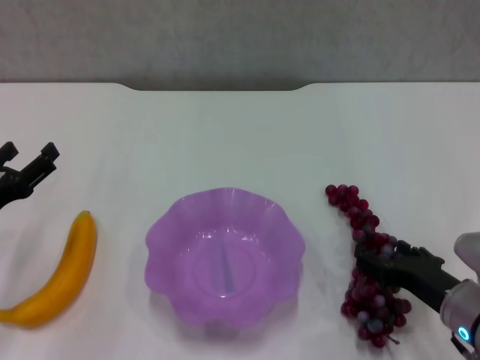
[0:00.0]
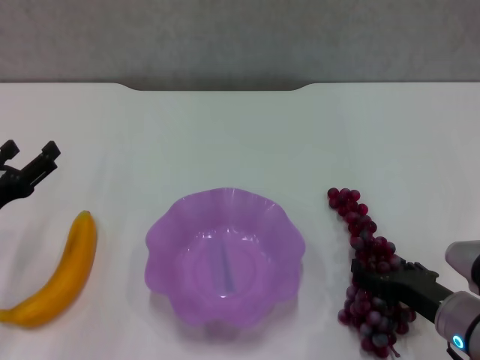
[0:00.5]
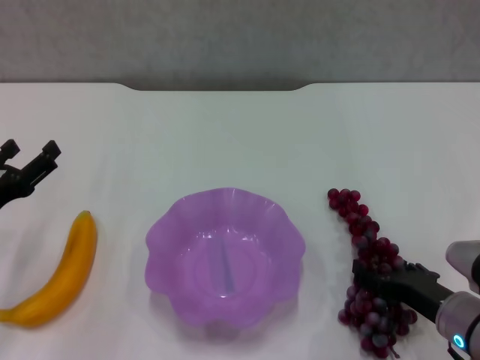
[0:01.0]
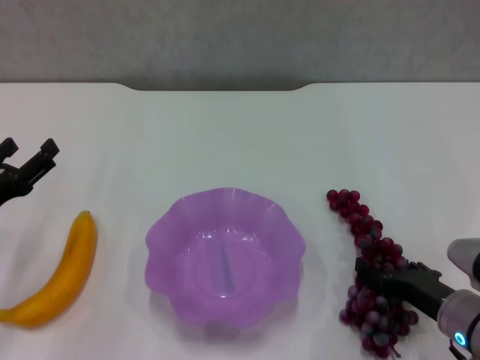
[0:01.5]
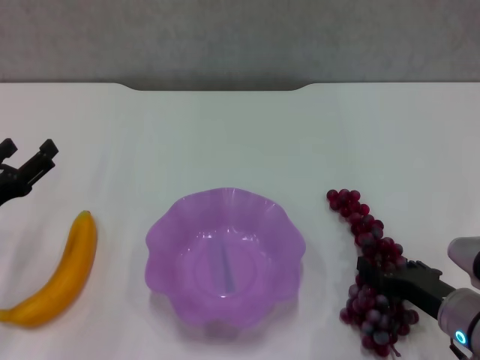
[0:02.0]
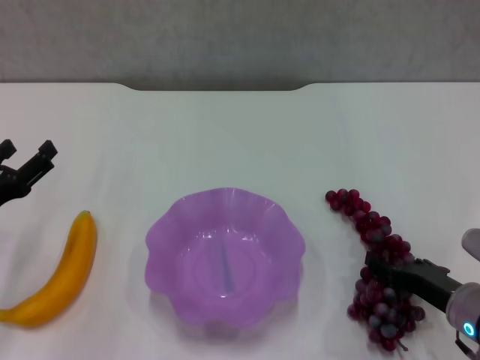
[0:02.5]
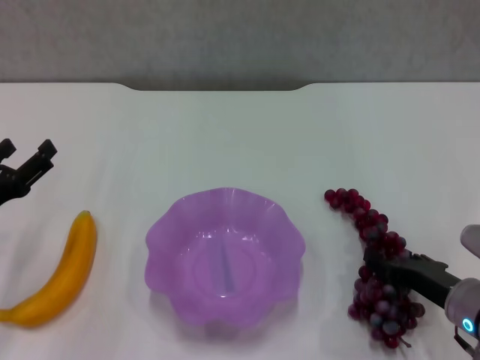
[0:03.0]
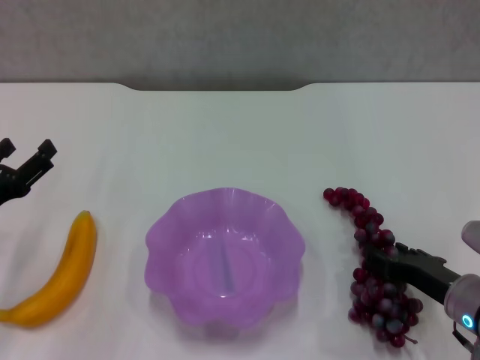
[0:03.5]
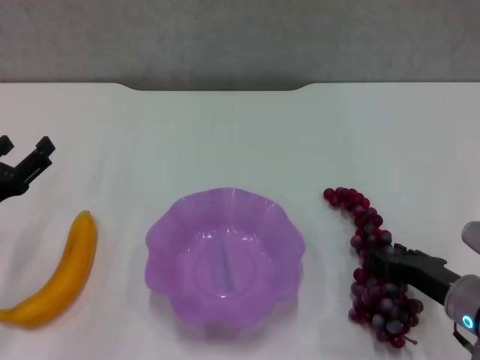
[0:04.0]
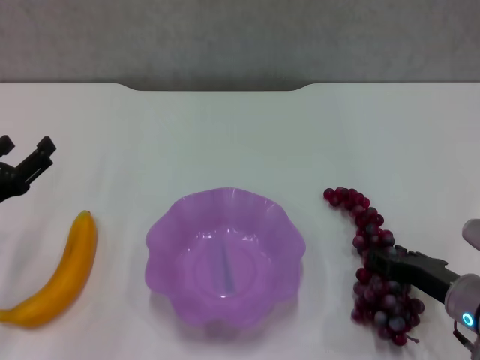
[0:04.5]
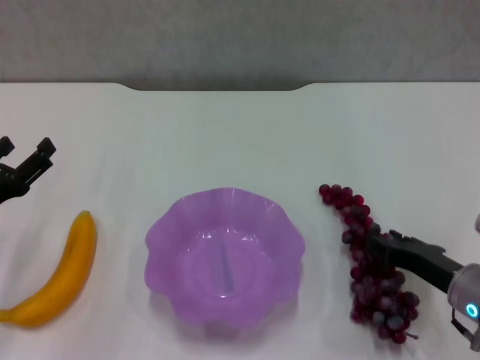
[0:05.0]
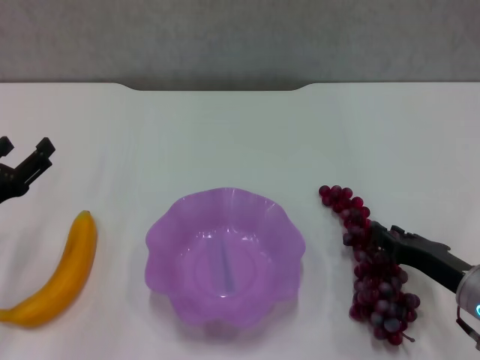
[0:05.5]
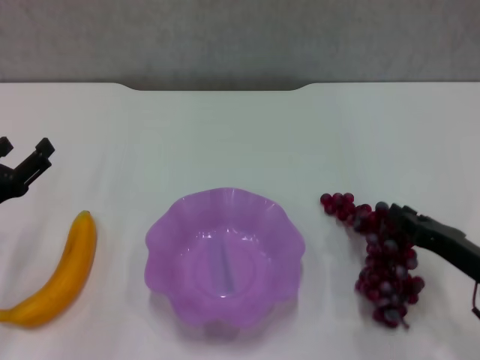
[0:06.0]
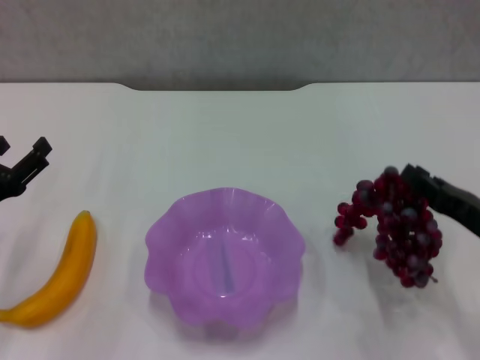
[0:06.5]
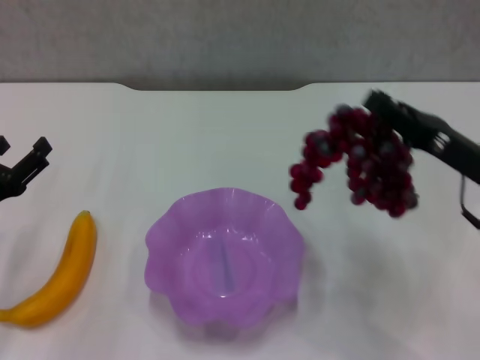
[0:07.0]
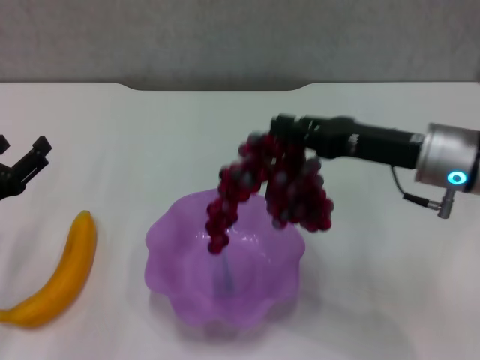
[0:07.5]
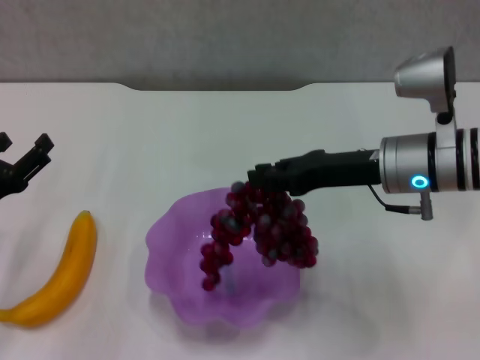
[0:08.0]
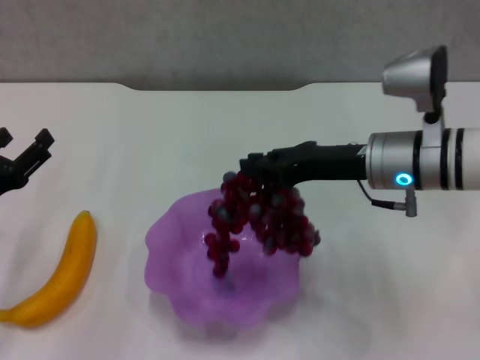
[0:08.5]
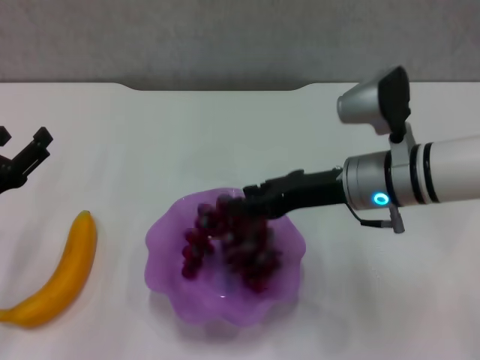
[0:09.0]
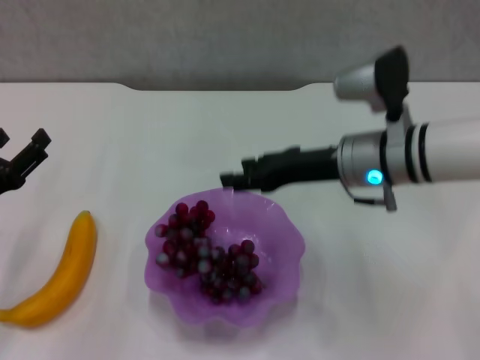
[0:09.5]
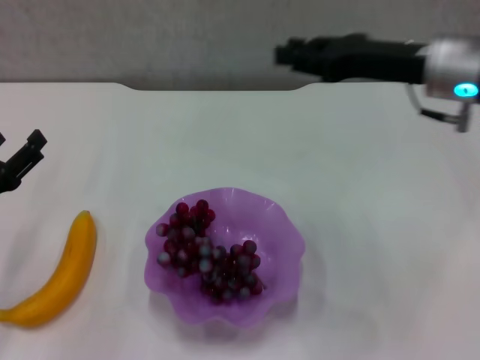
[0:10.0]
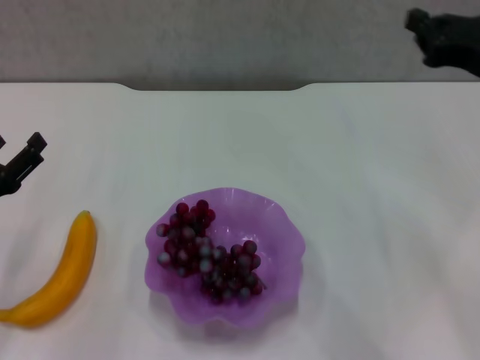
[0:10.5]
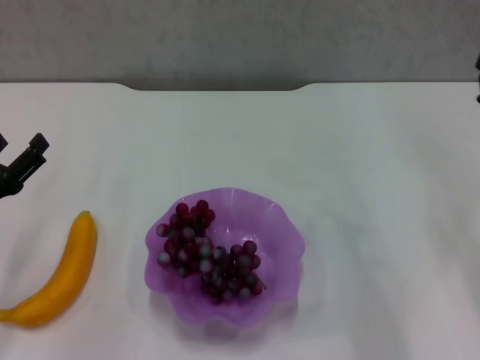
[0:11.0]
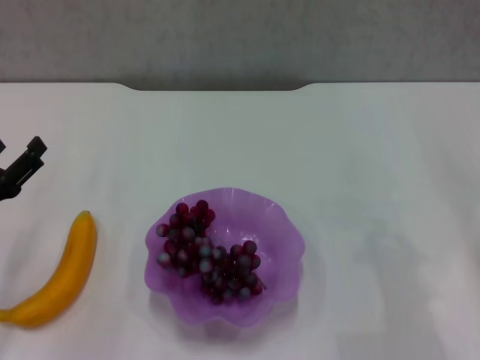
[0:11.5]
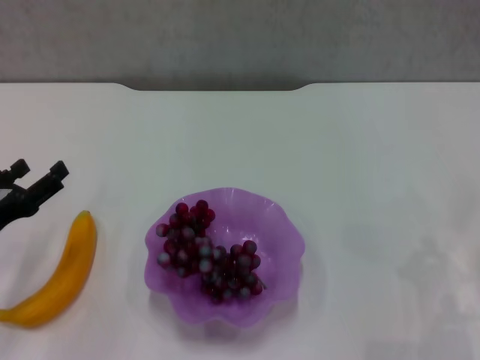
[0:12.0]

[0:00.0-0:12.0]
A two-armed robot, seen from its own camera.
Step, 0:00.0 to 0:05.0: Grasp the grape with right gripper.
Step, 0:05.5 to 0:09.0: Place the grape in the purple plate with right gripper.
0:00.0 to 0:04.0: The grippers make only small movements.
0:06.0 to 0:08.0: The right gripper heads upward, forward and to the left, covering approximately 20 cm.
0:08.0 to 0:10.0: The right gripper moves upward, approximately 10 cm.
0:10.0 to 0:12.0: The right gripper is displaced downward, backward and to the right by some 25 cm, and closes up.

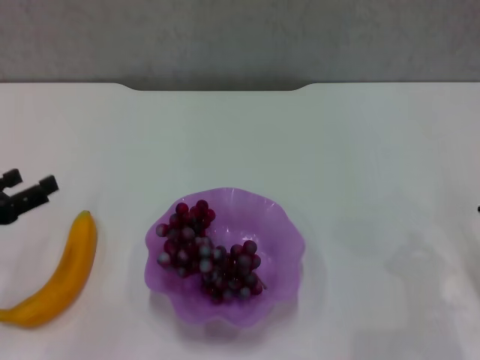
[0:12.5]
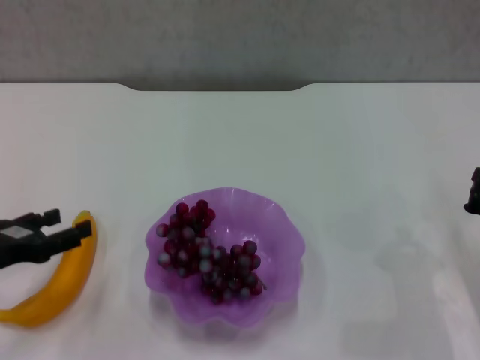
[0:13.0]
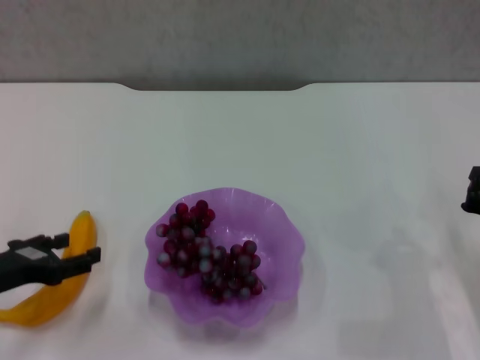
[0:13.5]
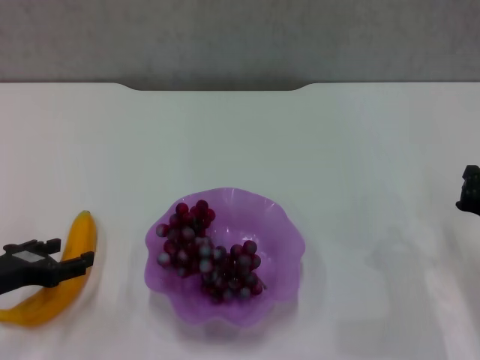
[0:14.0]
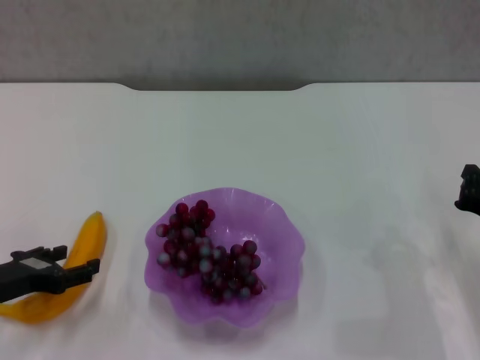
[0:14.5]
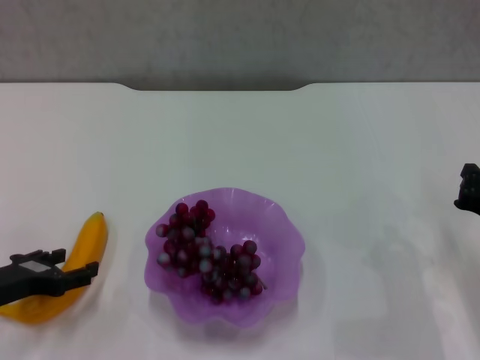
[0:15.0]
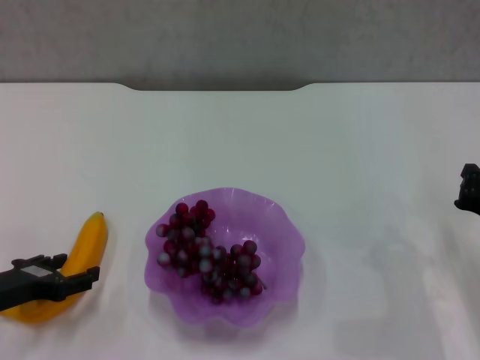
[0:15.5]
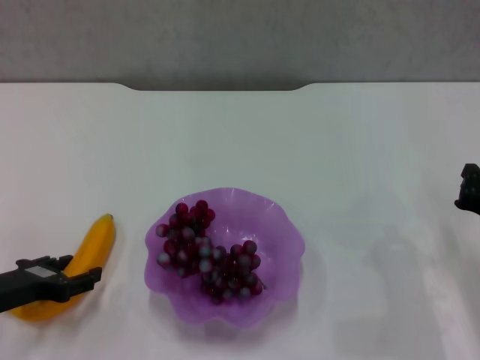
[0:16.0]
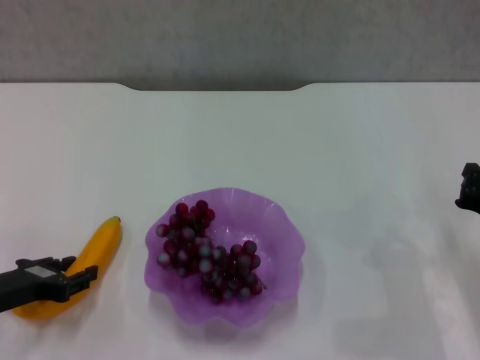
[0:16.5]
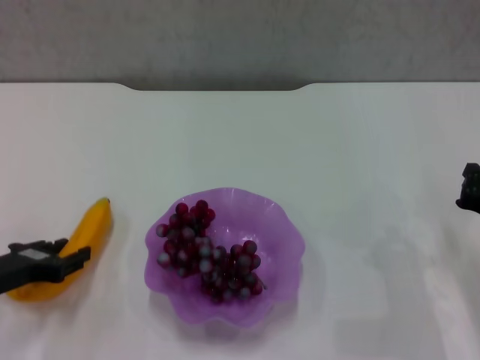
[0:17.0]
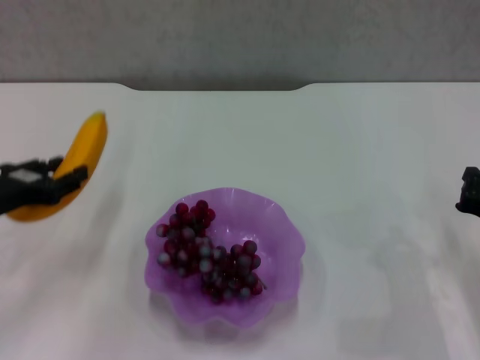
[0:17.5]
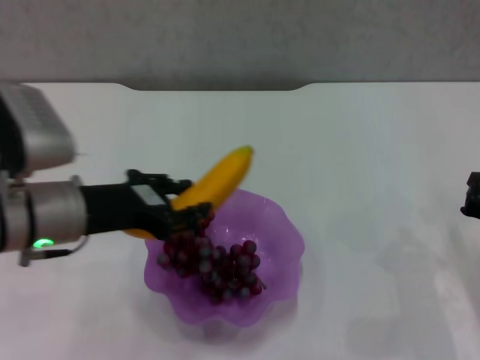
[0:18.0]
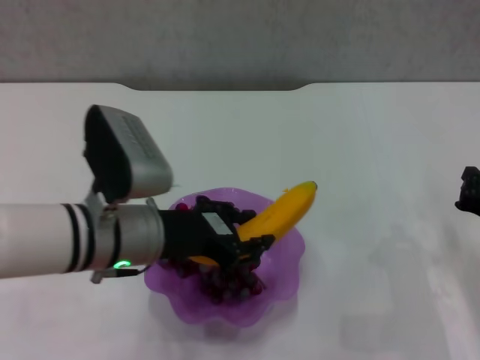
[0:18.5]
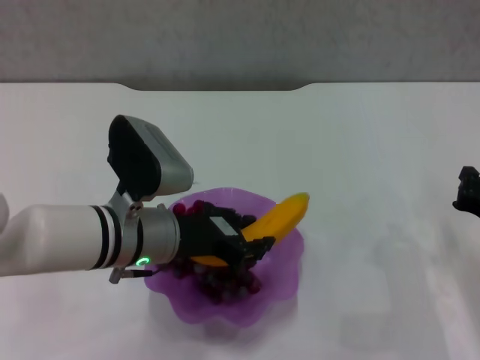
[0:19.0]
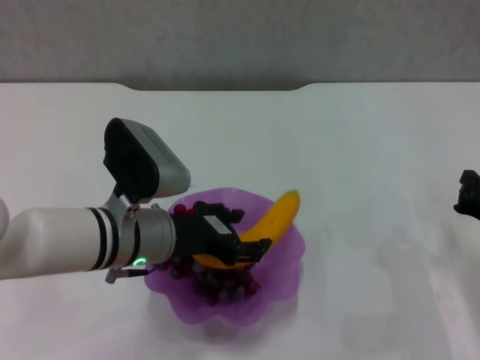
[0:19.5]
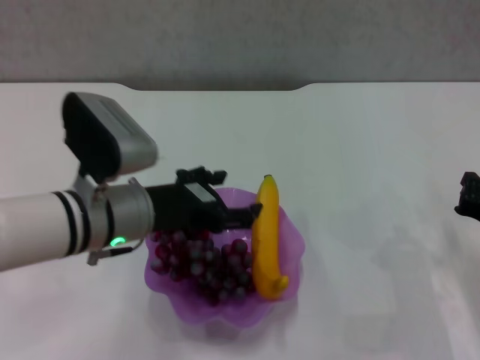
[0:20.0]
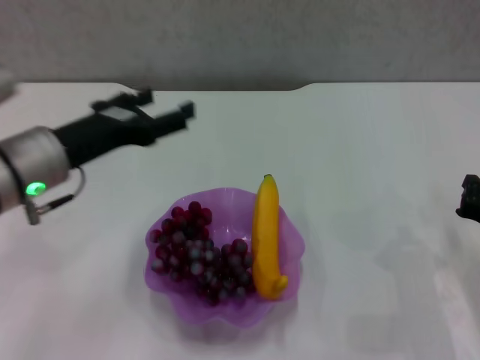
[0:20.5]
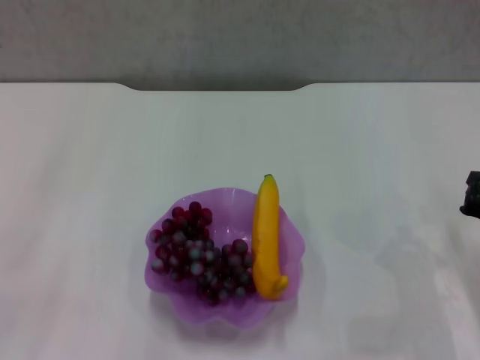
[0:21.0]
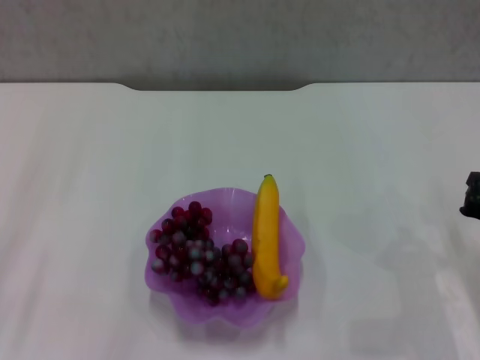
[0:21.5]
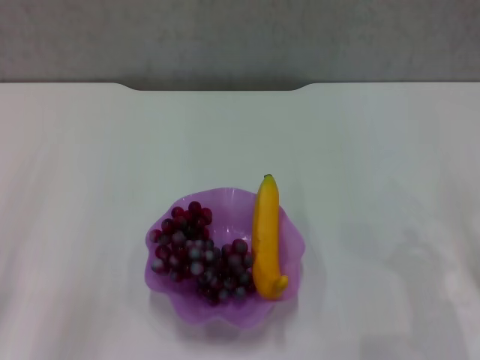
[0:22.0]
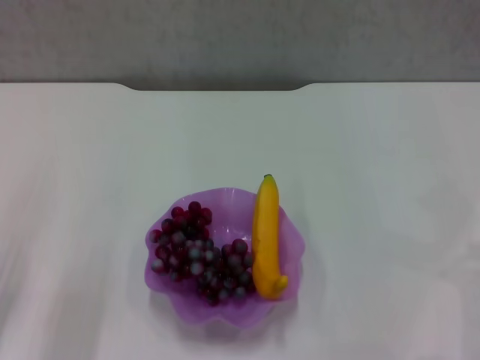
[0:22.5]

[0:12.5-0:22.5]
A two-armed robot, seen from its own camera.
Step, 0:12.5 to 0:16.0: Grasp the banana with left gripper.
Step, 0:16.5 to 0:19.5: Place the banana in the purple plate with left gripper.
0:12.5 to 0:14.5: The left gripper shifts by about 5 cm.
0:14.5 to 0:16.5: The left gripper closes.
0:16.5 to 0:18.5: The left gripper shifts some 20 cm to the right and upward.
0:18.5 to 0:20.5: The left gripper shifts approximately 10 cm to the left, and opens its fingers.
0:20.5 to 0:22.5: The left gripper moves downward, to the left and backward, about 20 cm, and closes, while the right gripper travels to the right by about 5 cm.
